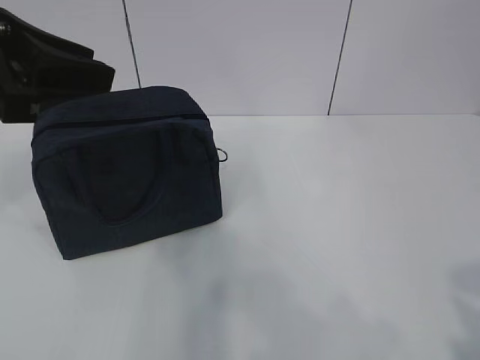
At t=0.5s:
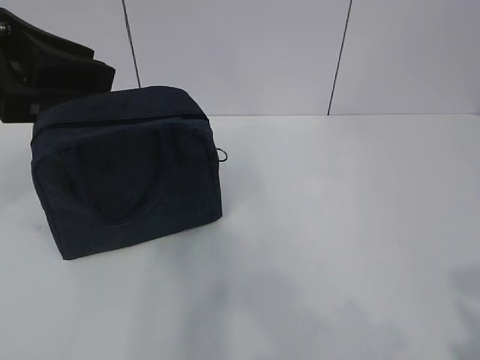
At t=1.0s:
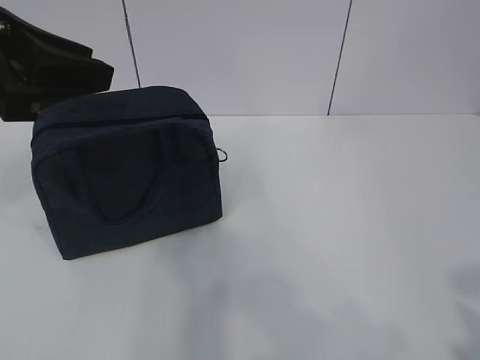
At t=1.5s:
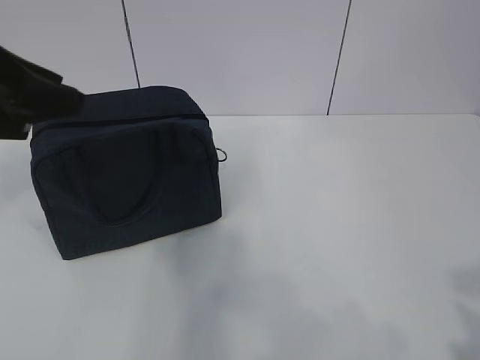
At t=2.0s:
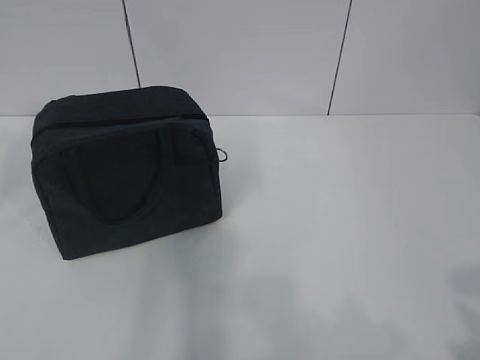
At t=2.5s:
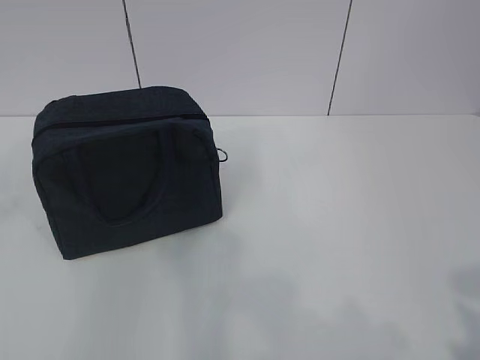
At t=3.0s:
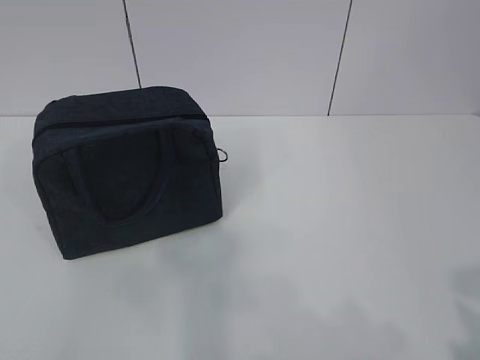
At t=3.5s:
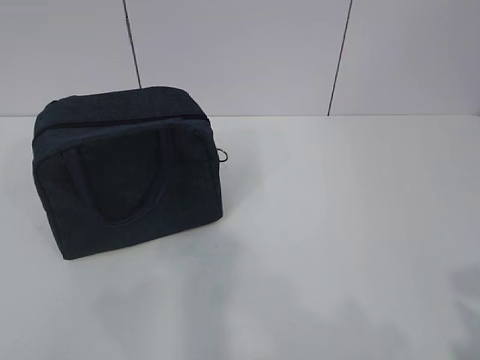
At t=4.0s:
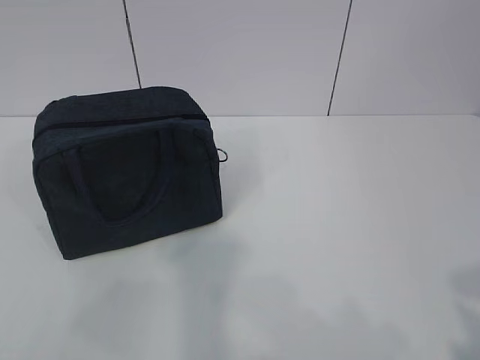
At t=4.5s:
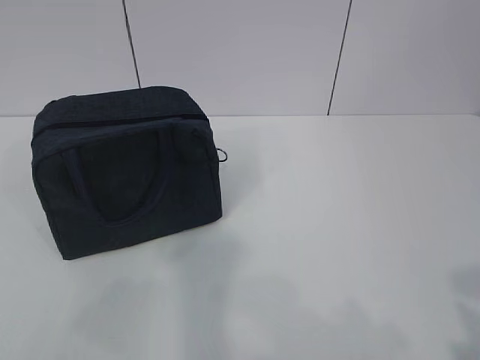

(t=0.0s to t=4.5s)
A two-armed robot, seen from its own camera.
t=0.0s - t=2.0s: The left gripper is displaced to the left by approximately 5 cm.

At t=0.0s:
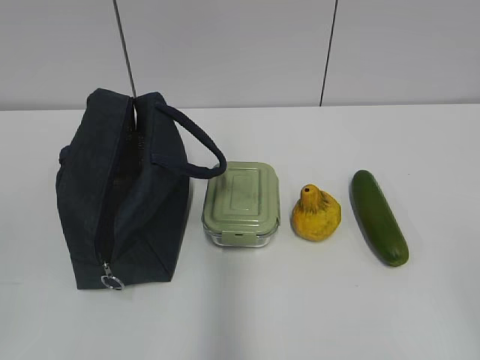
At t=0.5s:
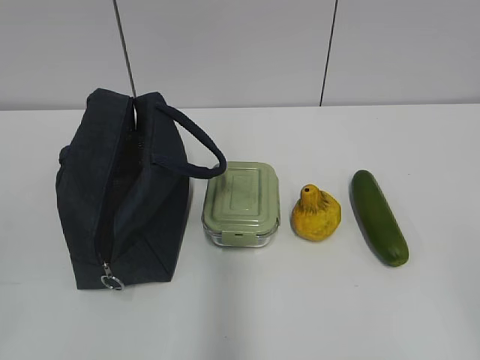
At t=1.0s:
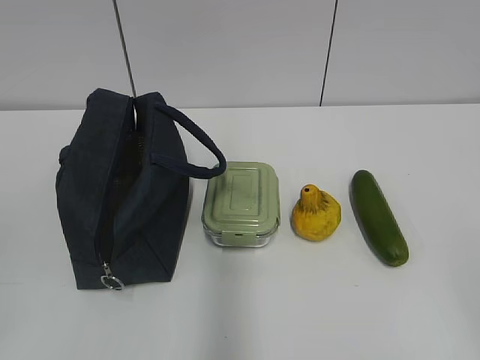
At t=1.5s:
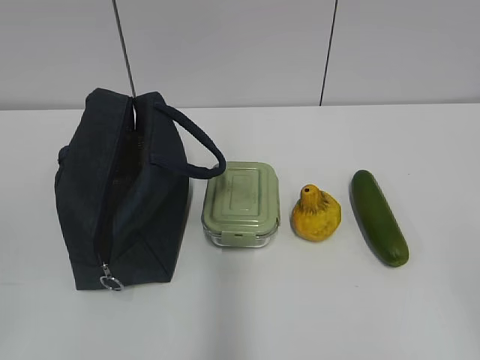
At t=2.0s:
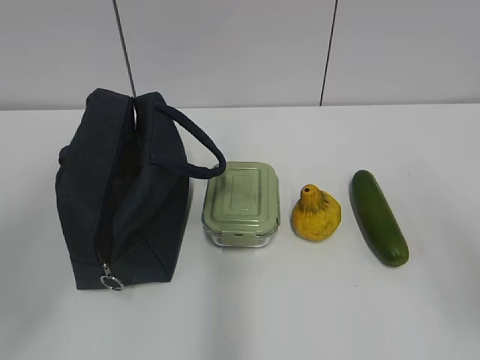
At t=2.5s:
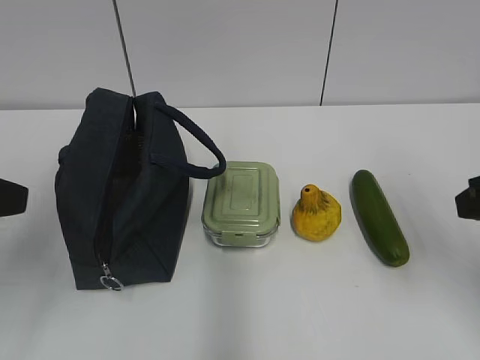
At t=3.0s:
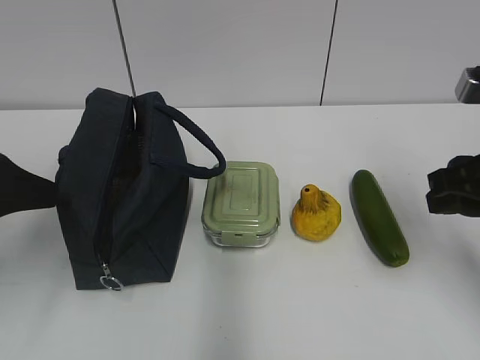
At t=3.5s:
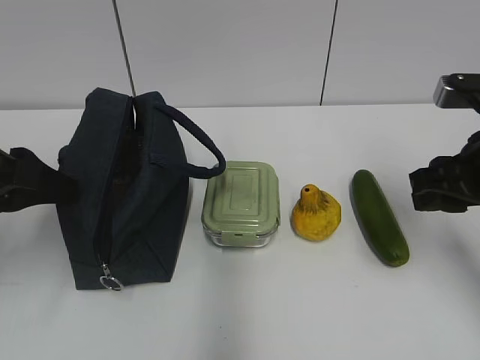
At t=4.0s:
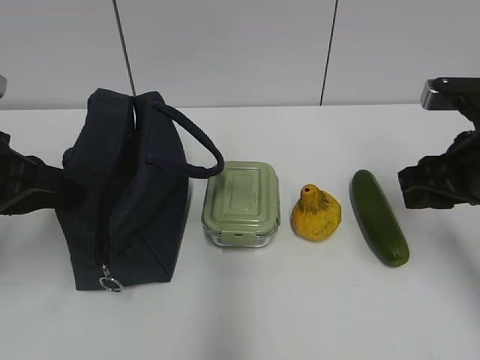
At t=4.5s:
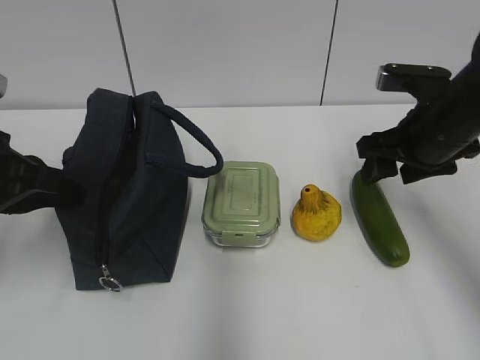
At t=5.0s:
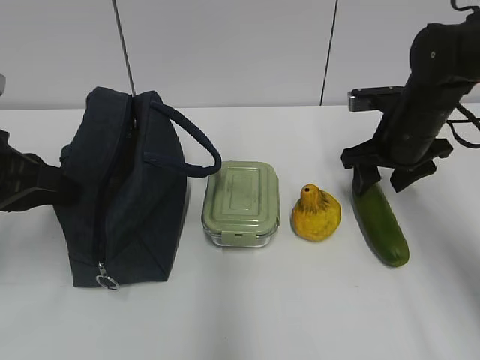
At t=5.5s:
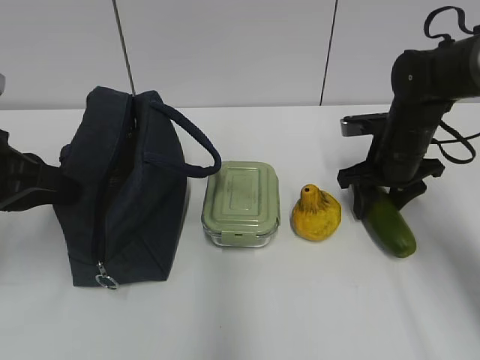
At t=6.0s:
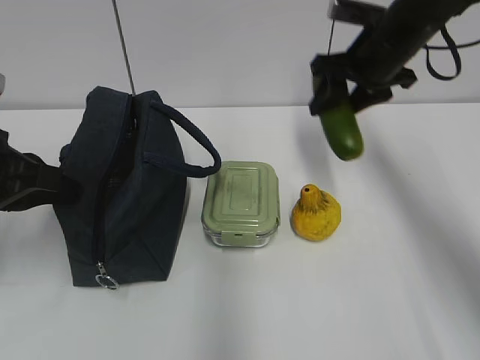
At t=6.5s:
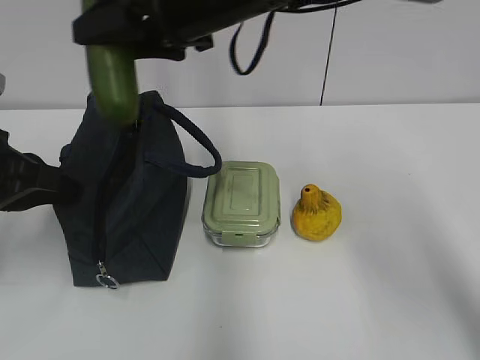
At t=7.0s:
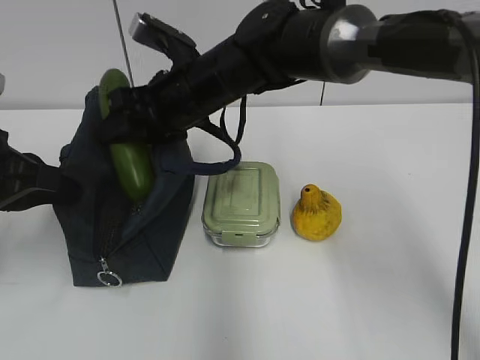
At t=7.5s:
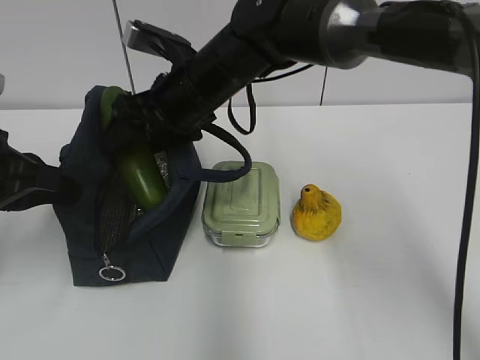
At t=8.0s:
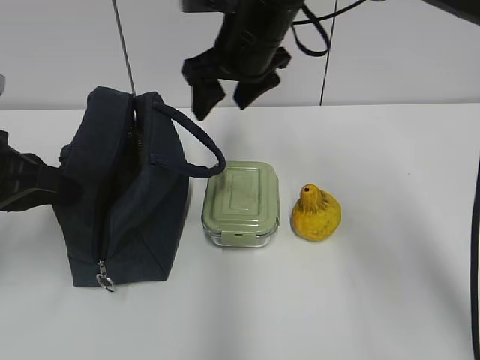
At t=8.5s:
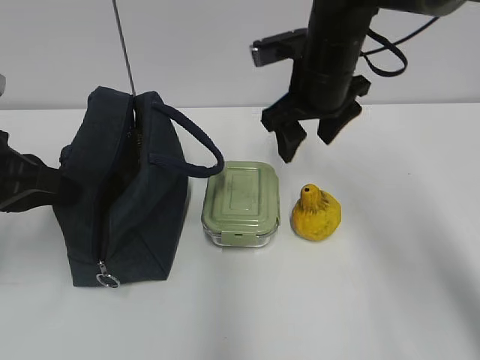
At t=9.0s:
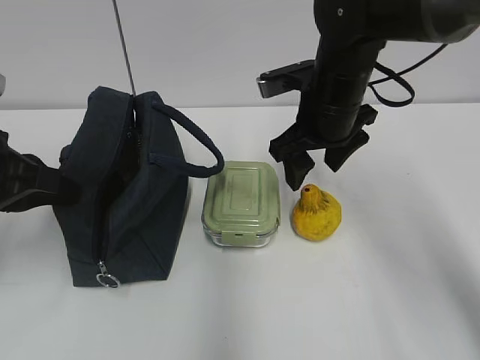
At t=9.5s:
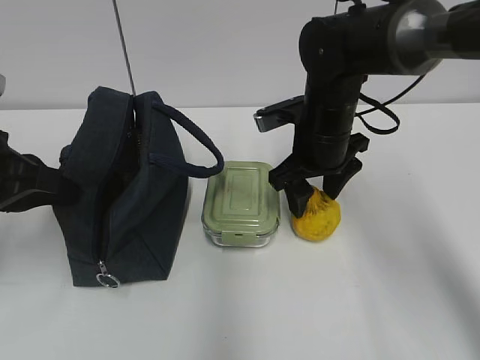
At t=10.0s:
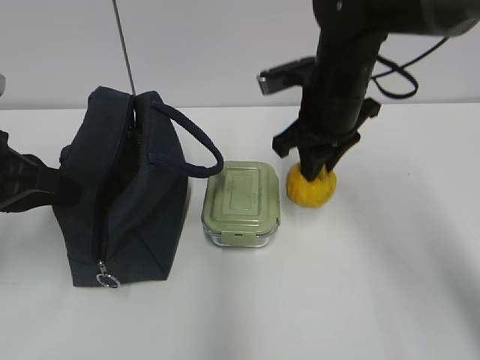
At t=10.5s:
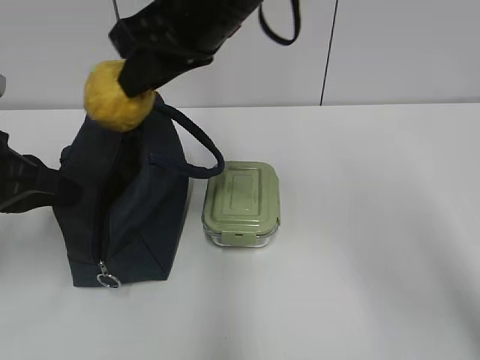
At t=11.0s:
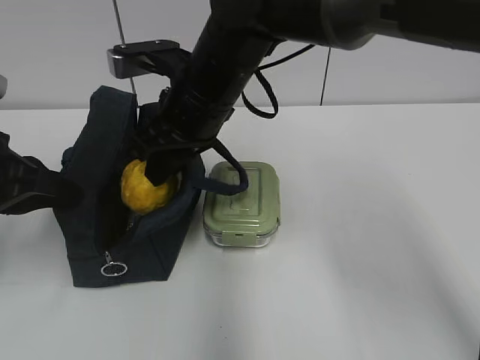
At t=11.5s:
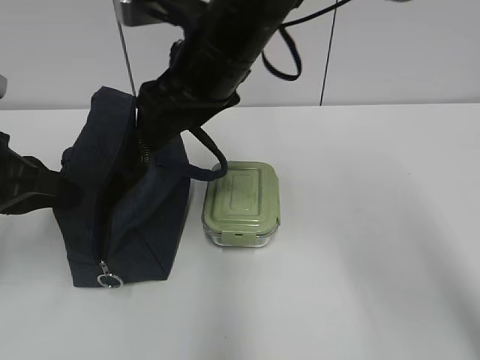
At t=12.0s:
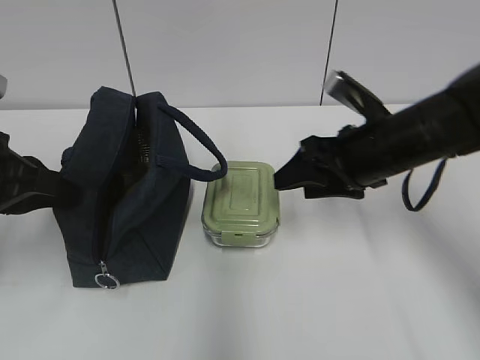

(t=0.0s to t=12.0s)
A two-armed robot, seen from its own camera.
Step, t=0.0s - t=5.0s: Grab the cucumber with your right hand.
Step, t=7.0s - t=7.5s: Place it into the bag with your right hand.
Step, t=8.0s - t=9.5s: Grab the pear with your right hand.
Step, t=10.0s - t=11.0s: Place it into the bag with your right hand.
t=2.0s - t=4.0s: The grippers both shift forward and downward by roughly 20 cm. The left gripper closes its fingers.
t=4.0s - t=6.0s: The right gripper travels forward by approximately 15 cm.
t=6.0s - t=8.0s: The right gripper shifts some 15 cm to the left.
t=8.0s - t=10.0s: The right gripper moves to the right, about 5 cm, and closes up.
t=10.0s - t=12.0s: The right gripper travels to the left and back again, approximately 15 cm each way, and opens its fingers.

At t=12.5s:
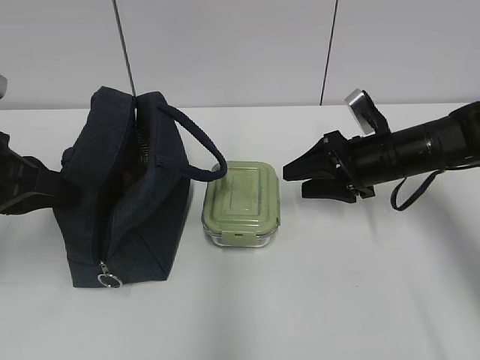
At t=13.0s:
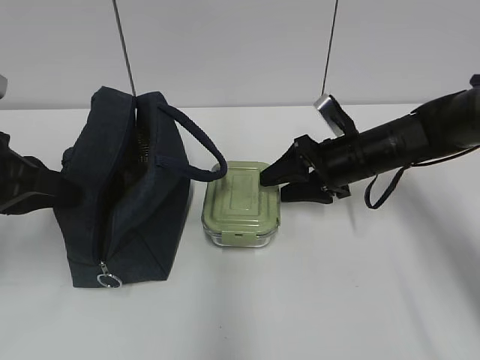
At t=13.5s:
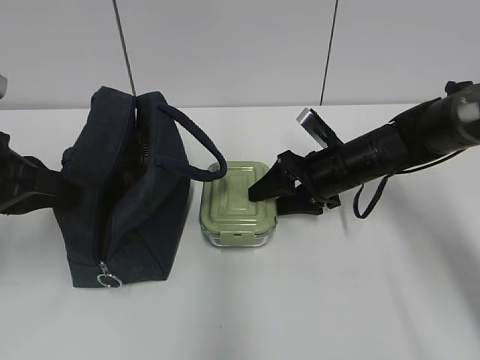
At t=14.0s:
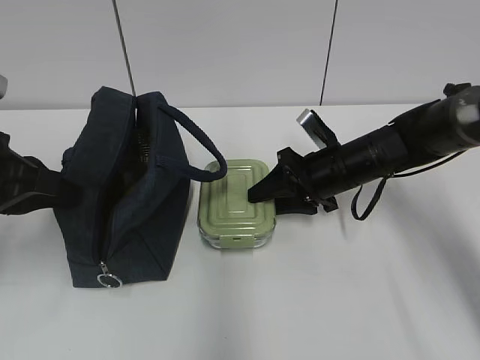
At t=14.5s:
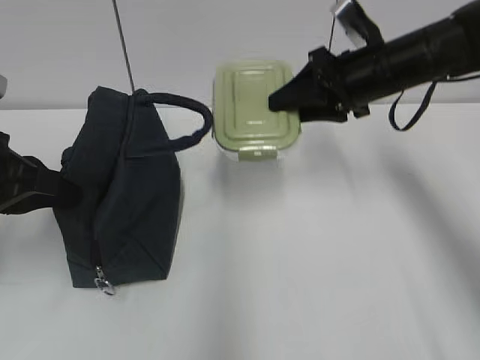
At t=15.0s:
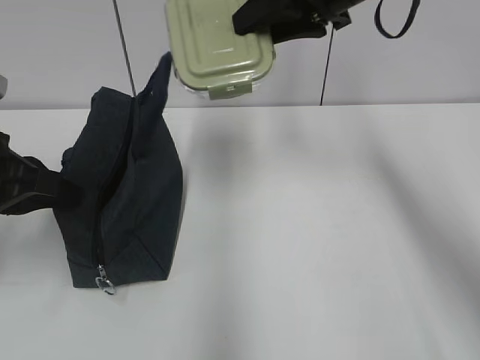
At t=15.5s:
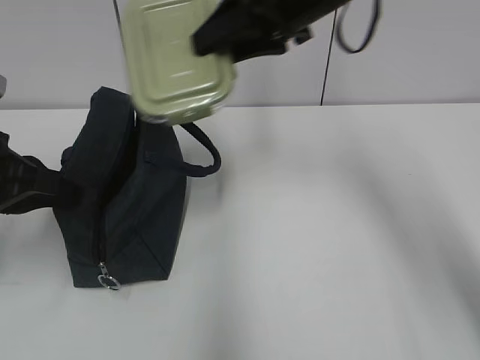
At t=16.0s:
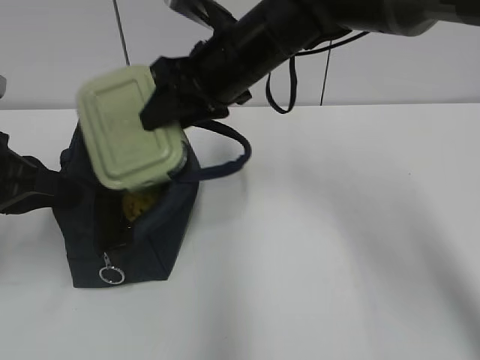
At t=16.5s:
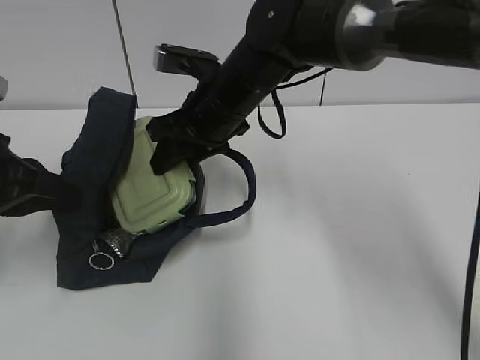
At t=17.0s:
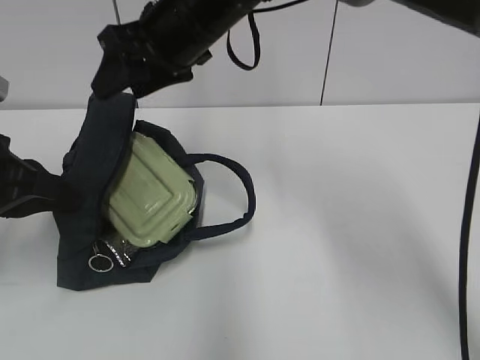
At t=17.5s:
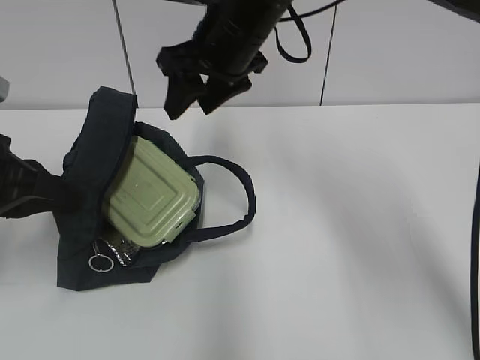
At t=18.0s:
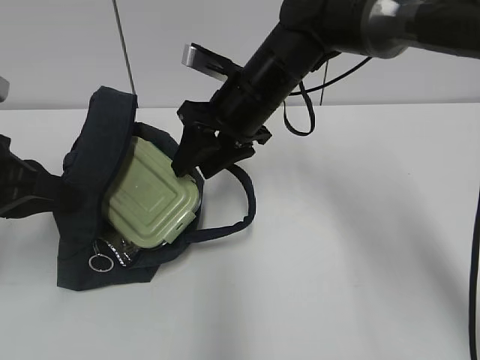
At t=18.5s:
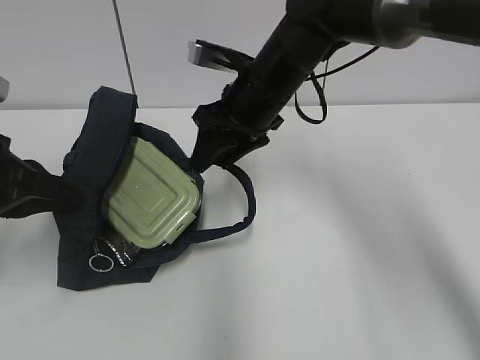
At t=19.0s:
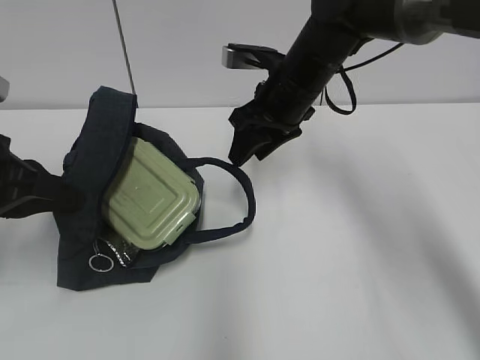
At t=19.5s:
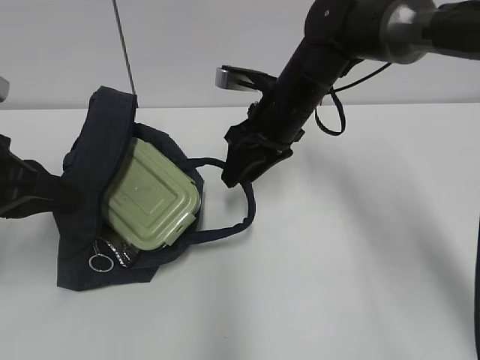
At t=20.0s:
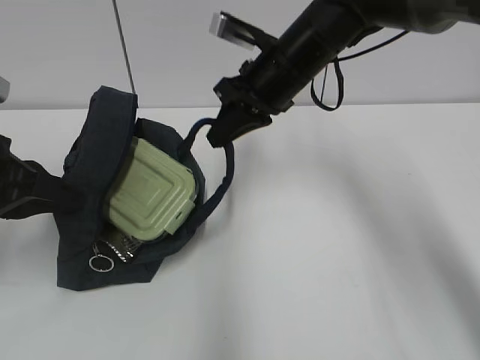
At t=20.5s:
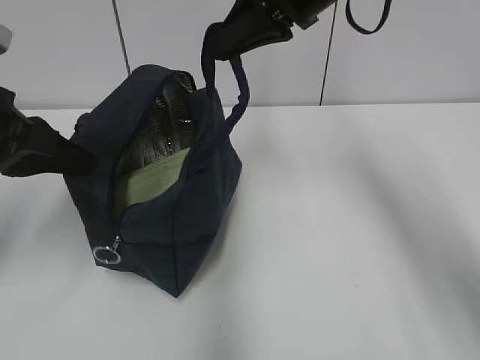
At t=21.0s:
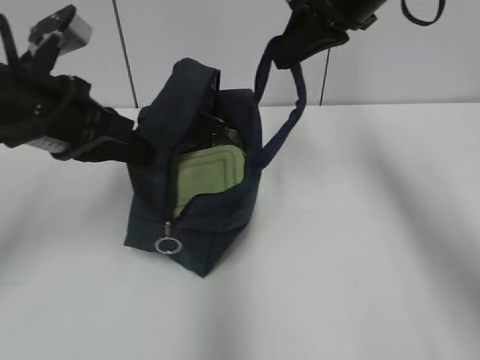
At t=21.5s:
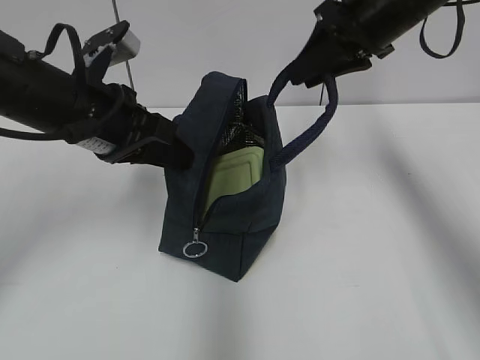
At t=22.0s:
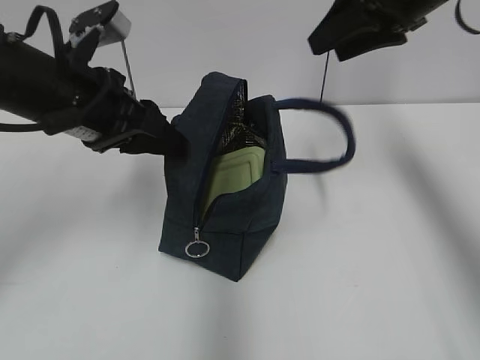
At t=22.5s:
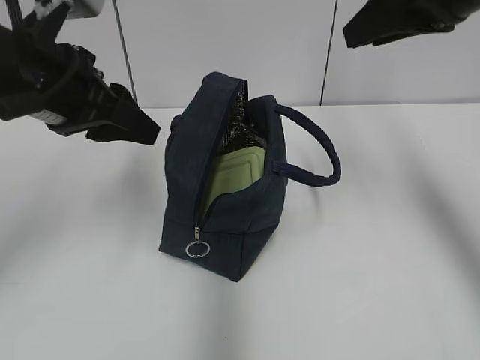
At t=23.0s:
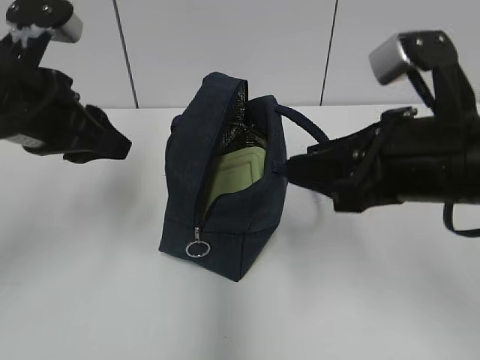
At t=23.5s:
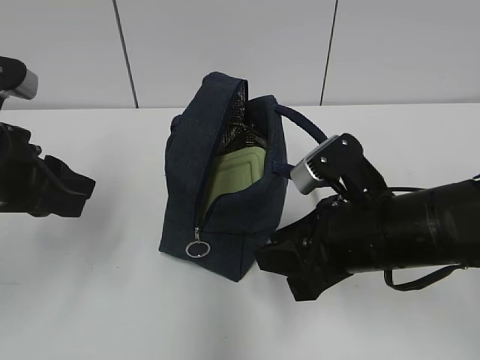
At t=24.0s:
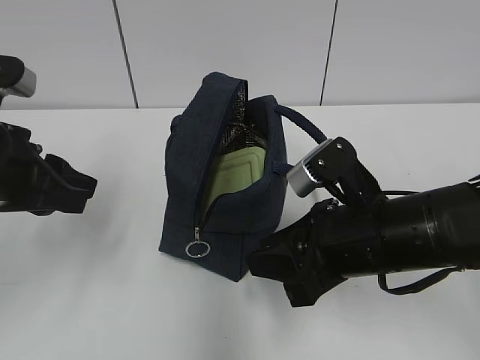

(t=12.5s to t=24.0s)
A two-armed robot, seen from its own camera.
Step, t=17.5s - t=19.5s: Grab the lunch bag with your right hand.
Step, t=20.0s - t=21.5s: Move the lunch bag to the right.
t=12.5s - t=14.5s: The right gripper heads upward, covering about 10 cm.
t=14.5s - t=16.5s: The right gripper is displaced to the left by roughly 20 cm.
t=16.5s - t=18.5s: The right gripper heads to the right, covering approximately 5 cm, and moves approximately 10 cm upward and comes back.
t=18.5s - t=20.0s: The right gripper closes.
t=20.0s - t=22.0s: The left gripper is displaced to the right and forward by roughly 10 cm, and opens up. Meanwhile the right gripper is displaced to the right and upward by some 15 cm, and opens.
t=22.0s - t=24.0s: The right gripper shifts approximately 25 cm downward, backward and to the left, and closes up; the left gripper travels backward and to the left by approximately 10 cm.
